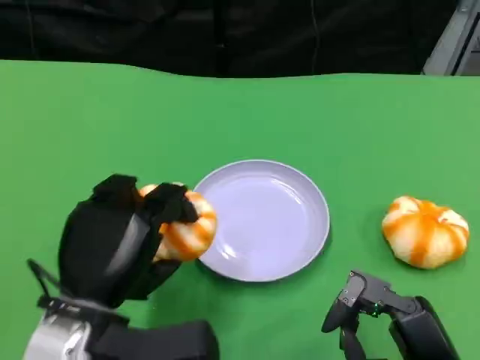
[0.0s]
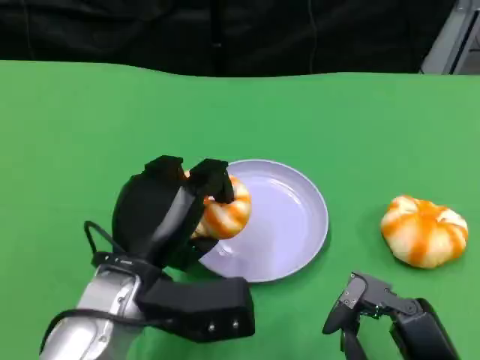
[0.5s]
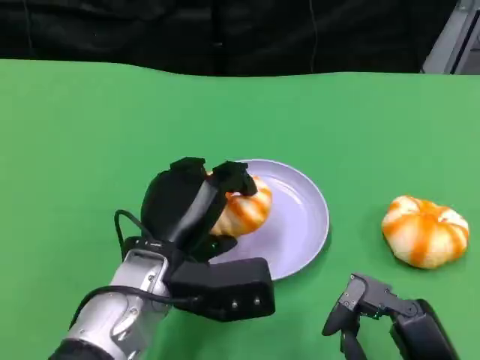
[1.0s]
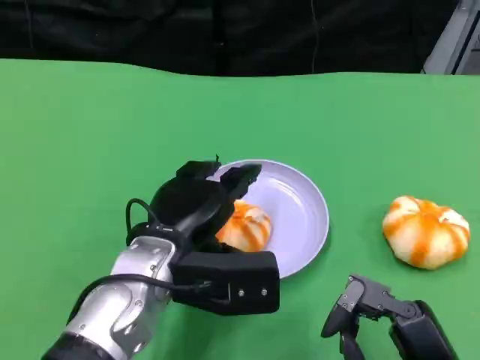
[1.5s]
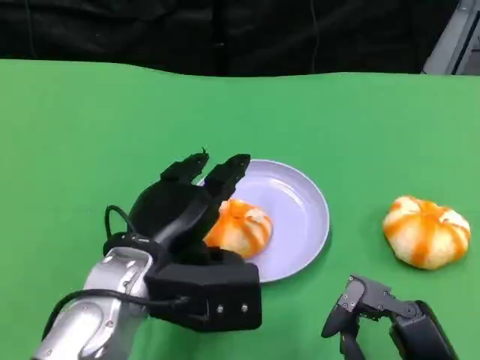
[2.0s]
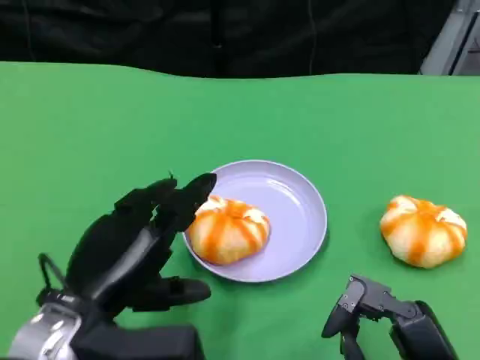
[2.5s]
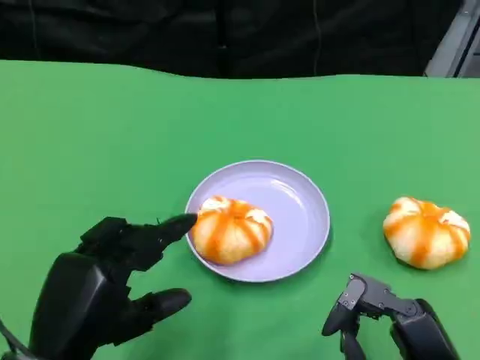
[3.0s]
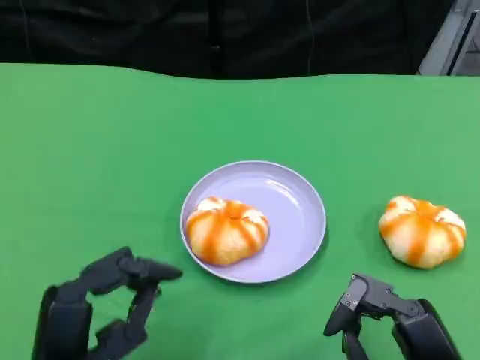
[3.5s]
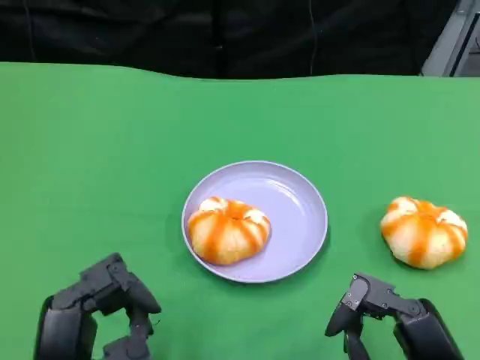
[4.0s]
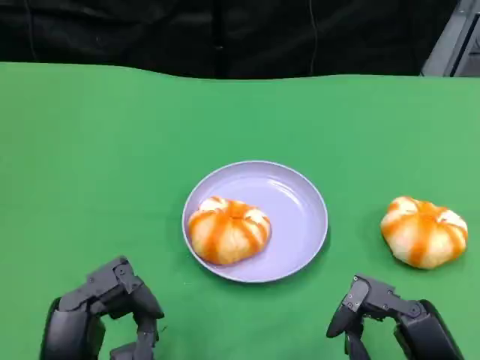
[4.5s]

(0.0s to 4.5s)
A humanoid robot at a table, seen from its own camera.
Task of the whole recording: Grasp the bread from the table and place it into the plate.
0.0s - 2.0s: The left hand moves approximately 5 cm.
2.0s - 4.5s: The left hand moves backward, to the left and downward, about 15 cm.

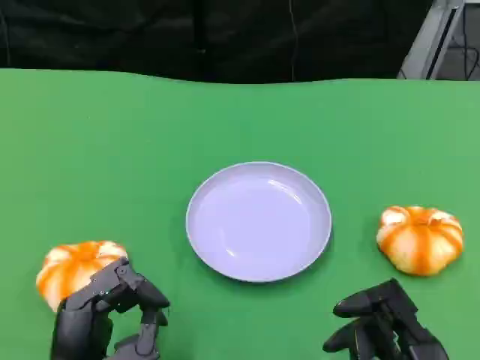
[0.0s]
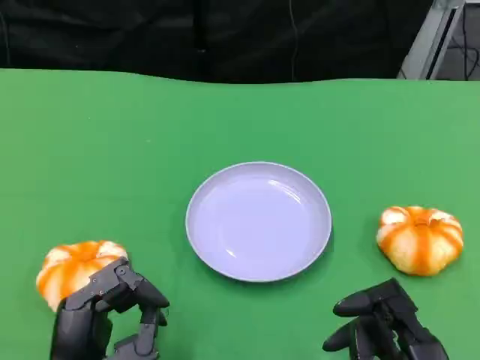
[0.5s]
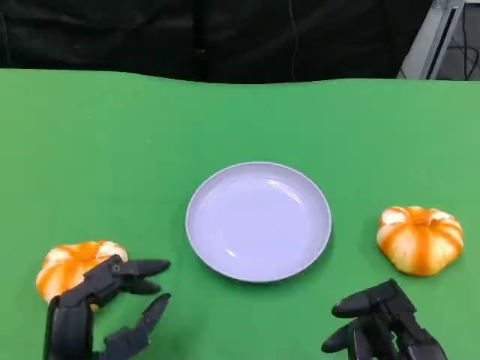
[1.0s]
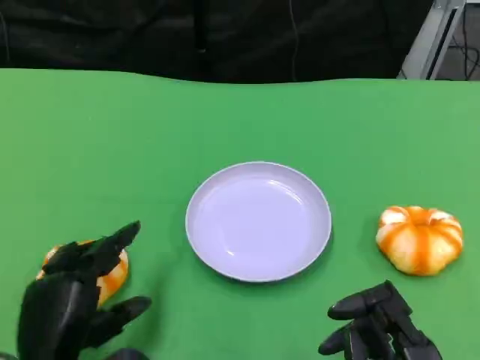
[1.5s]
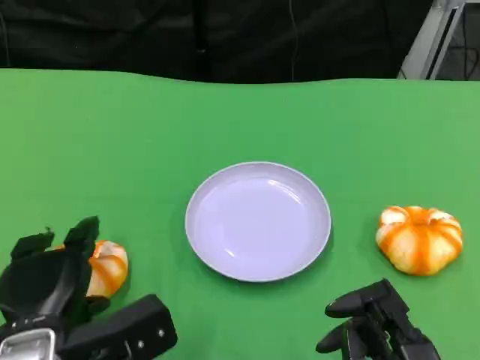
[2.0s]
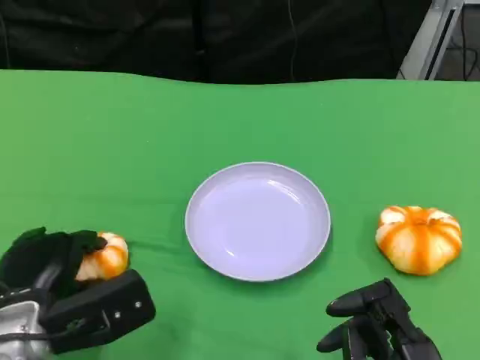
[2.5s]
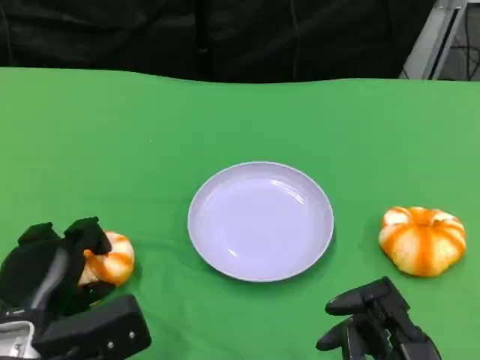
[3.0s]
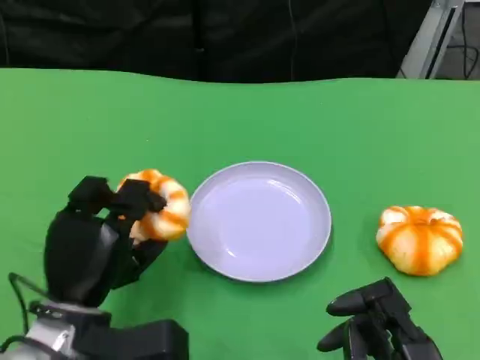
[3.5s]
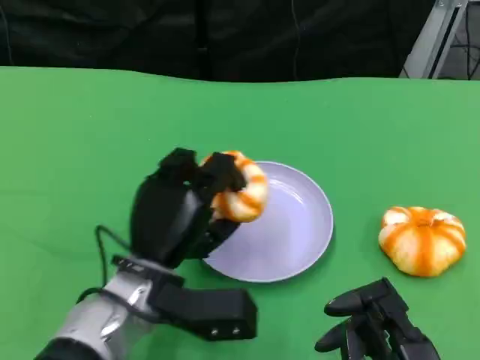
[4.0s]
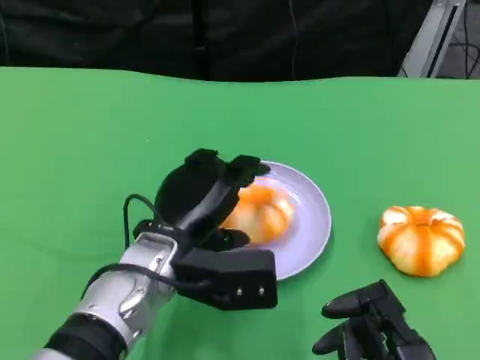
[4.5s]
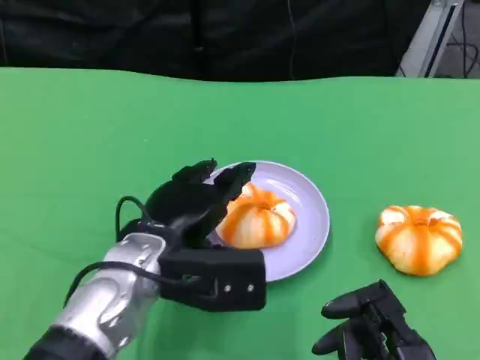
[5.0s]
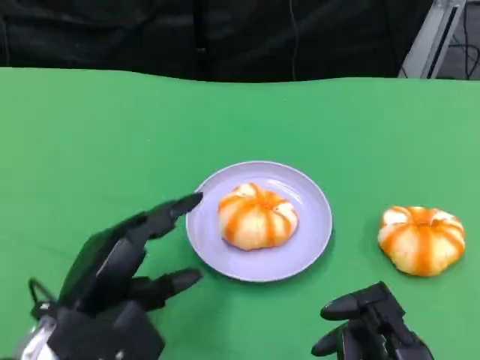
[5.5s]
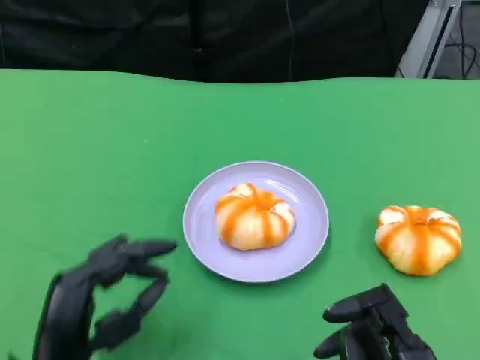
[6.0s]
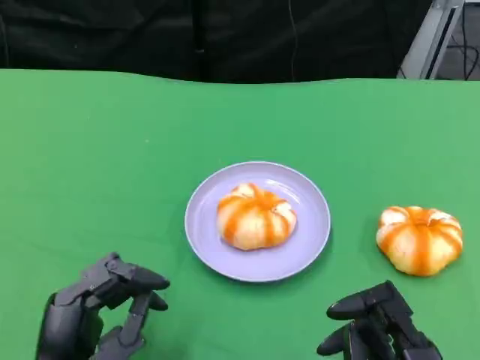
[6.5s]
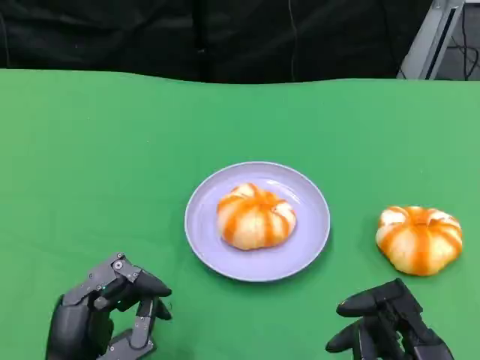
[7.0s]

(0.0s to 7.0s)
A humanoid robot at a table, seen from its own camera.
Task of the whole recording: Grasp the bread from the table and place it into the plate.
0.0s - 2.0s: The left hand shifts about 5 cm forward.
3.5s - 5.0s: The left hand is displaced to the right and upward by some 5 cm.
5.0s - 7.0s: The left hand goes about 15 cm backward, to the left and downward.

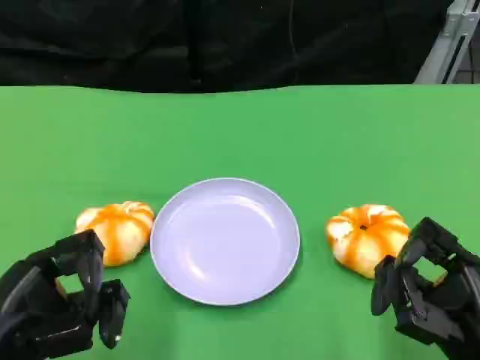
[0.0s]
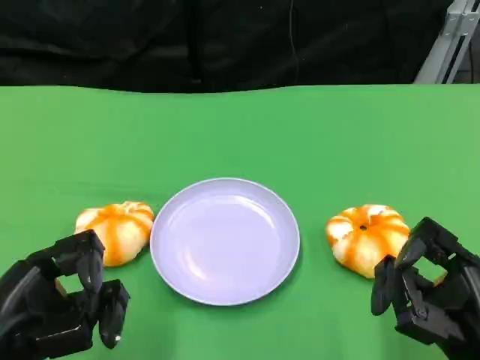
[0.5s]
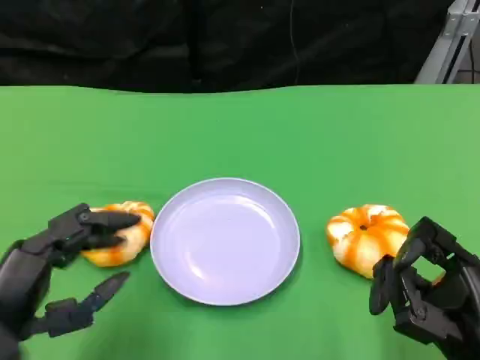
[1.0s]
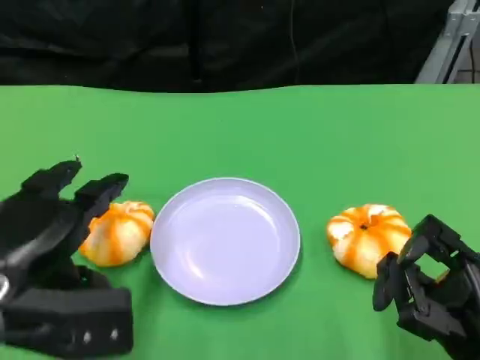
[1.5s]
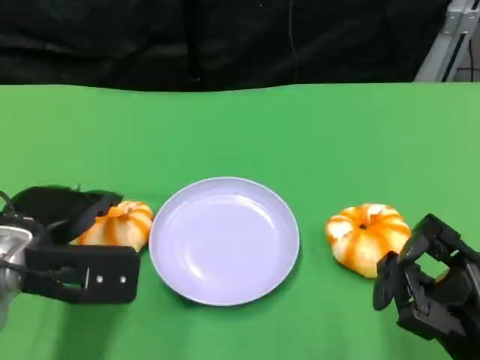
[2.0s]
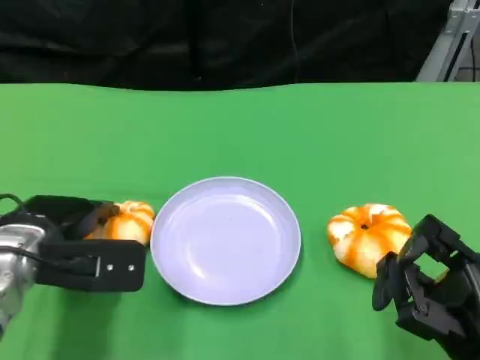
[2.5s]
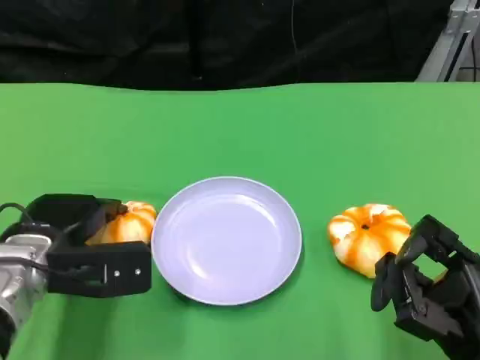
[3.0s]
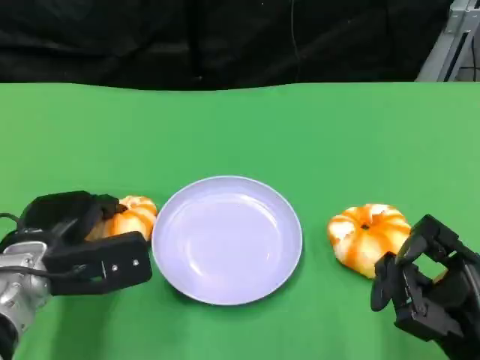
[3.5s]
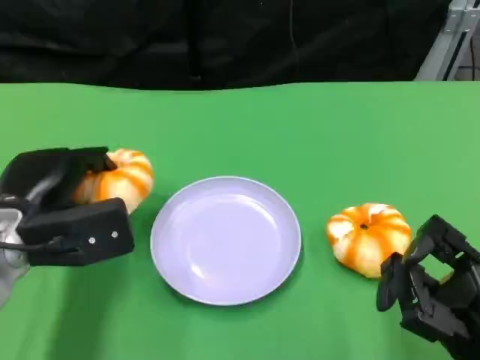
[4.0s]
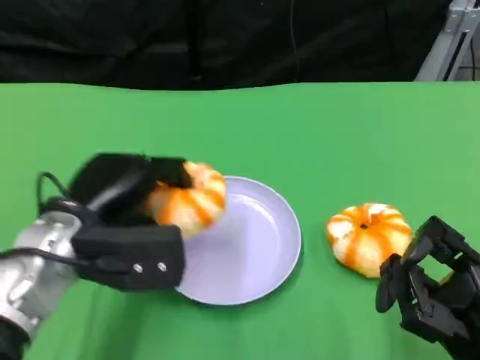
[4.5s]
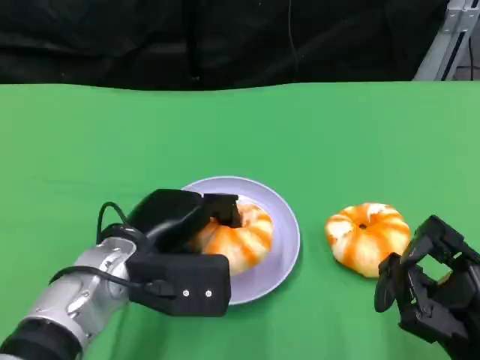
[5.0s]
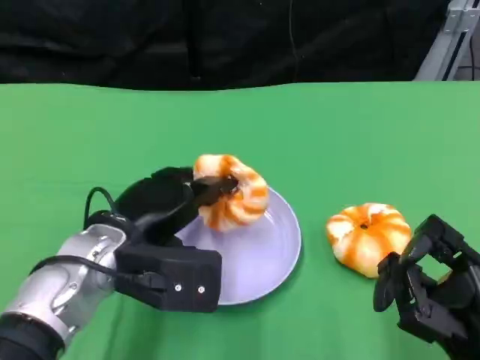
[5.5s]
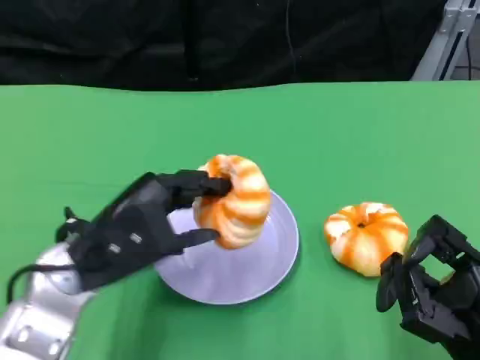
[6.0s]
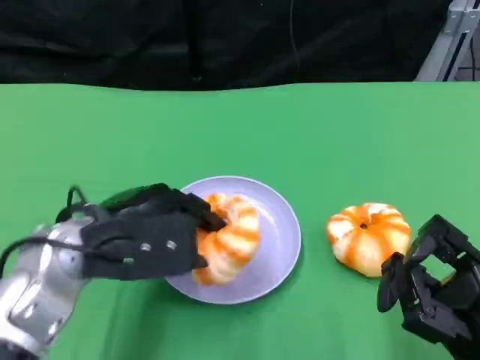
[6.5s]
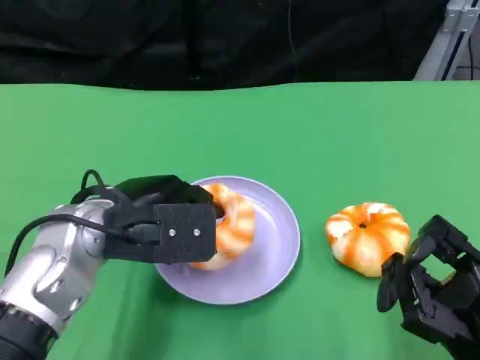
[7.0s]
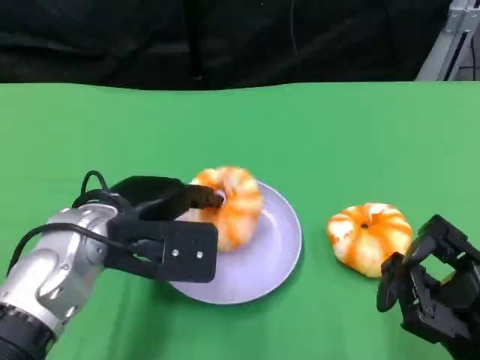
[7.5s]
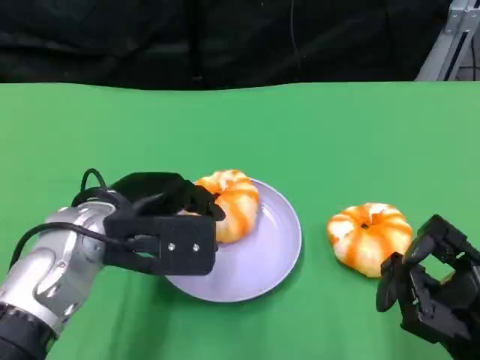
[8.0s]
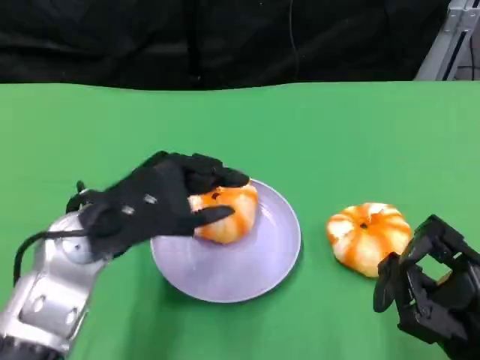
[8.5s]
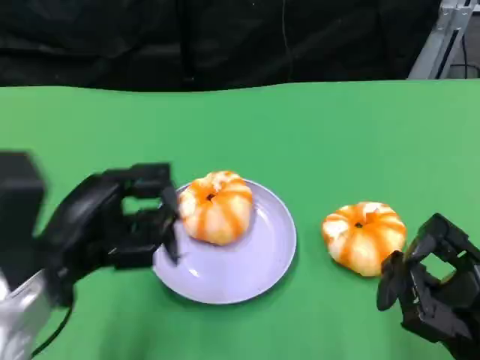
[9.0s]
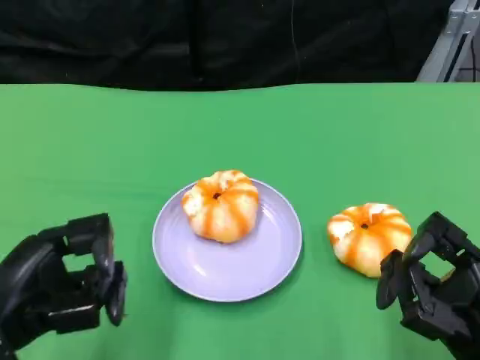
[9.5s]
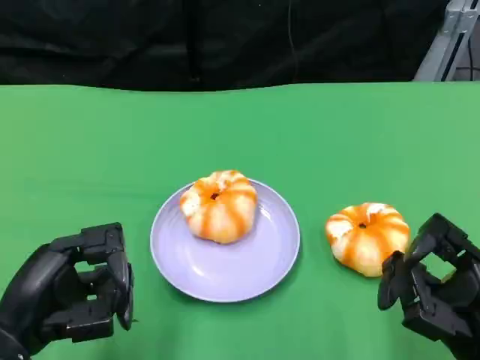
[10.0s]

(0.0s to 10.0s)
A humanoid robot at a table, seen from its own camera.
Task of the whole recording: Grasp the bread from the table and place it into the plate.
0.0s - 2.0s: The left hand moves forward, roughly 10 cm.
4.0s - 6.0s: The left hand shifts some 5 cm to the right.
8.0s - 10.0s: The left hand moves backward and to the left, approximately 15 cm.

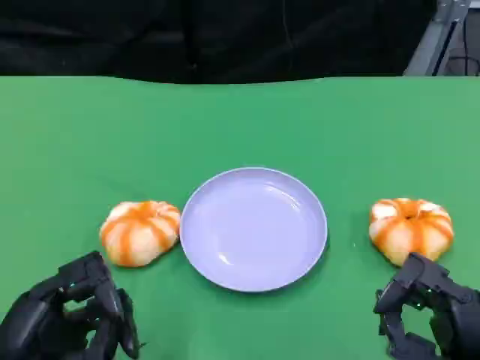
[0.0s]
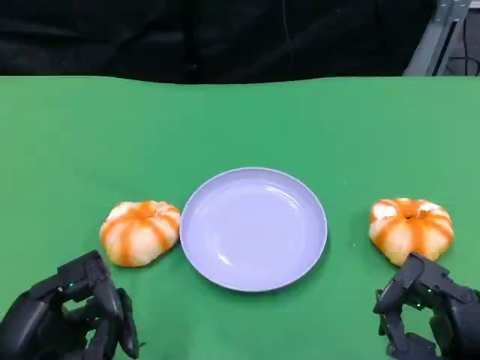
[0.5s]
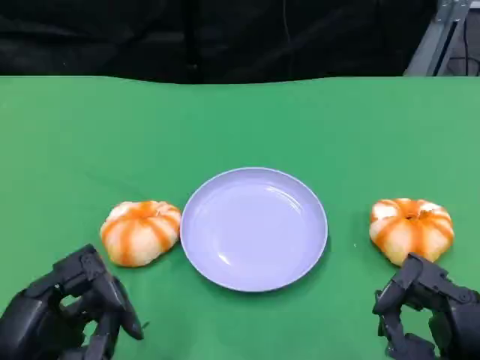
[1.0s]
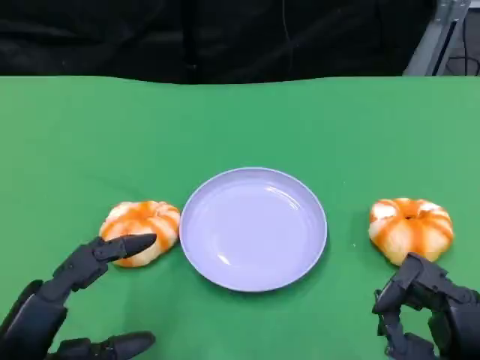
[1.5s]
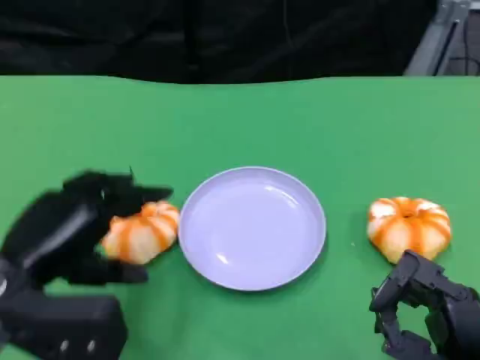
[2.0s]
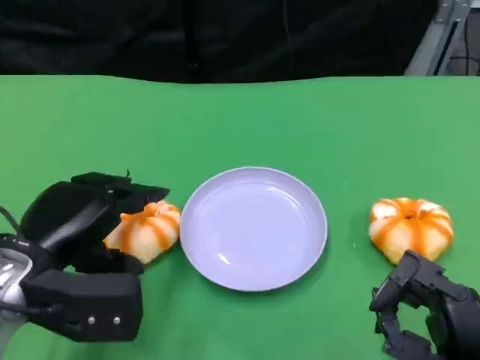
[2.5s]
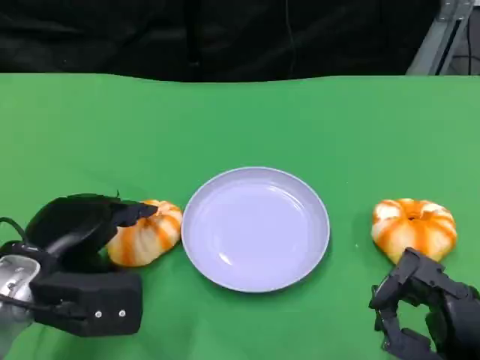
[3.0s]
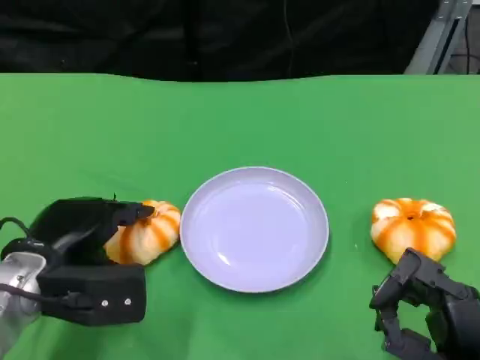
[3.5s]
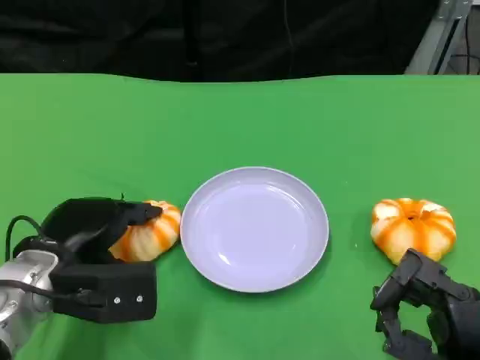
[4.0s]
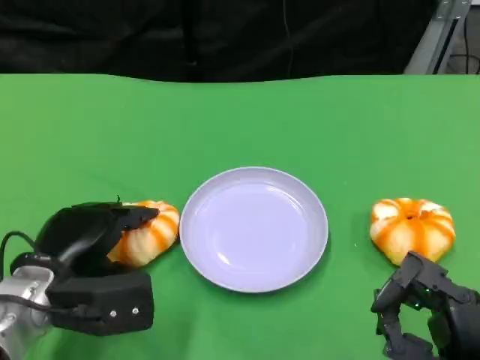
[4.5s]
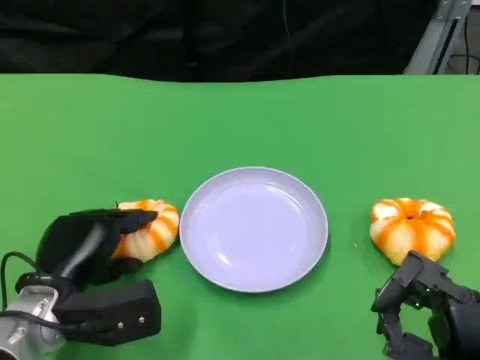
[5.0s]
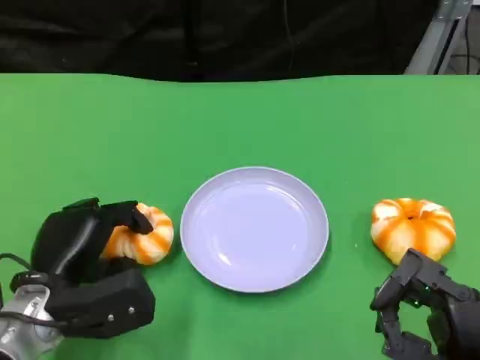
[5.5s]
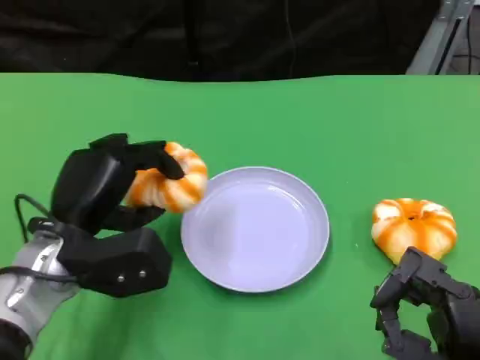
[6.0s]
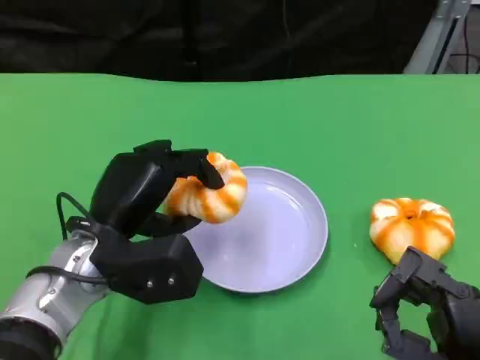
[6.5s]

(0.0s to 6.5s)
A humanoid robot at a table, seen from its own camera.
Task of the whole recording: Grasp the bread from the table and place it into the plate.
0.0s - 2.0s: The left hand is displaced forward by some 10 cm.
2.0s - 4.5s: The left hand goes some 10 cm downward.
4.5s - 6.5s: The left hand heads to the right, covering about 5 cm.
